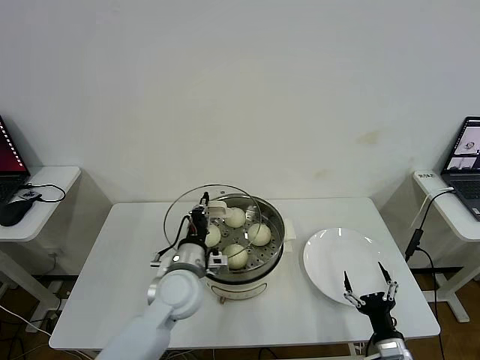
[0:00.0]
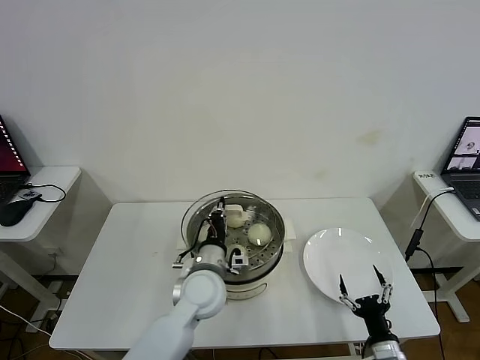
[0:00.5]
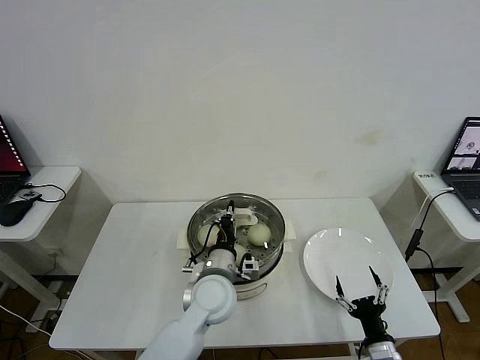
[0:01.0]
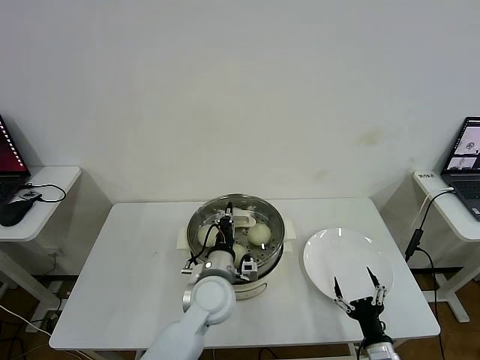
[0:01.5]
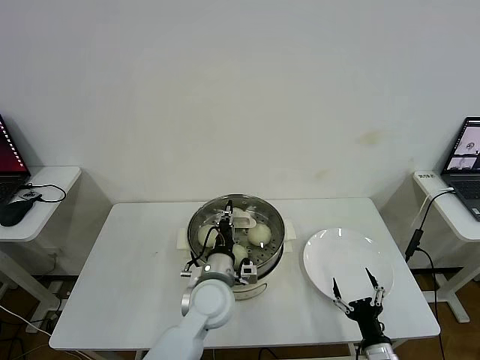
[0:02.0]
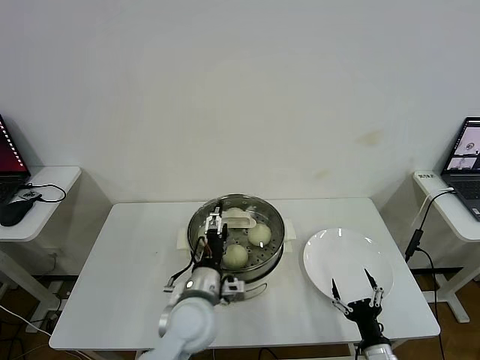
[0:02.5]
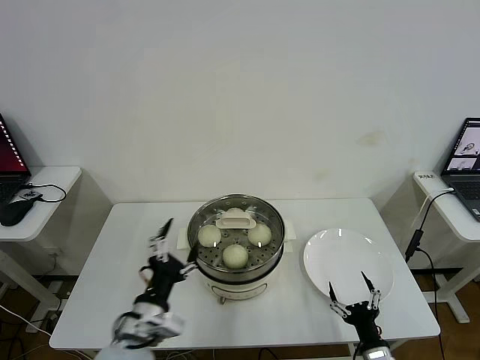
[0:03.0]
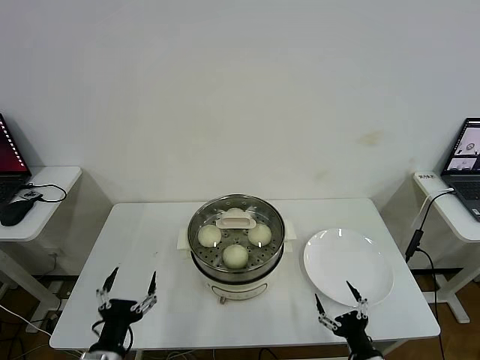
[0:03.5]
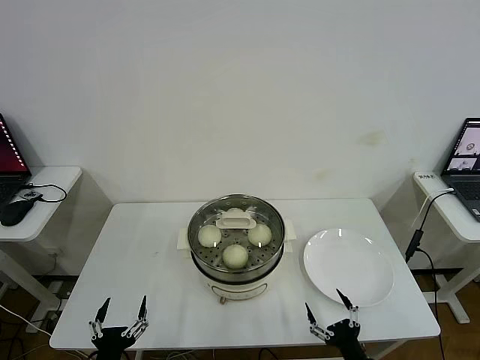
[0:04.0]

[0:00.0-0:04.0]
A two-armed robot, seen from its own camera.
Step, 0:00.0 to 0:02.0: Place the pot lid on the steamer with left gripper.
0:00.0 to 0:02.0: The left gripper is displaced to the right by approximately 5 cm.
0:02.0 to 0:04.0: The left gripper heads backward and to the left, covering about 30 cm, and opens its fingers, while the right gripper changes place by about 5 cm.

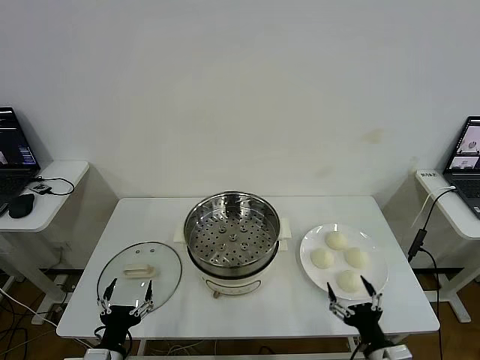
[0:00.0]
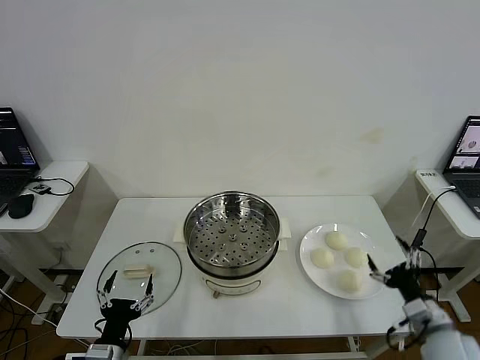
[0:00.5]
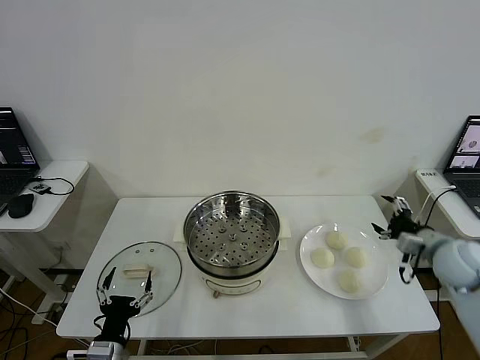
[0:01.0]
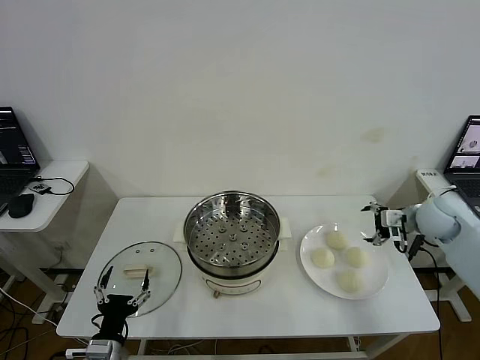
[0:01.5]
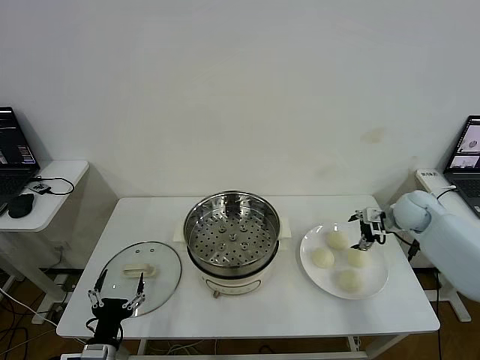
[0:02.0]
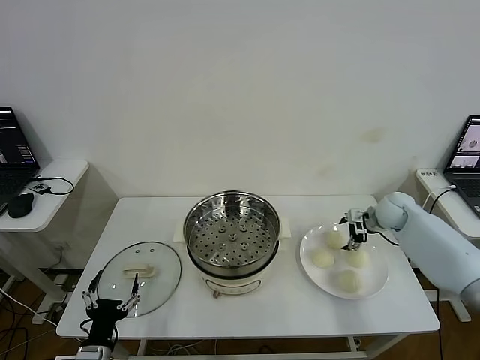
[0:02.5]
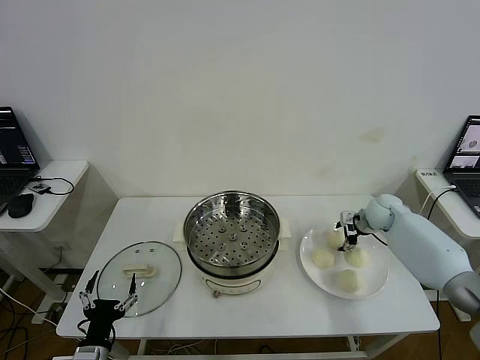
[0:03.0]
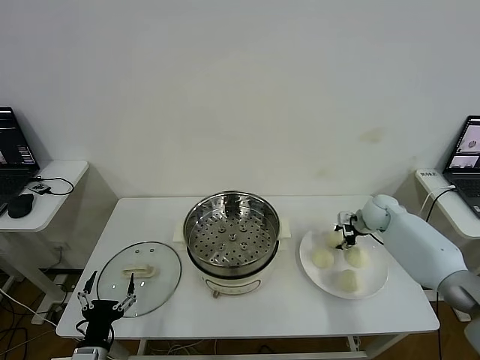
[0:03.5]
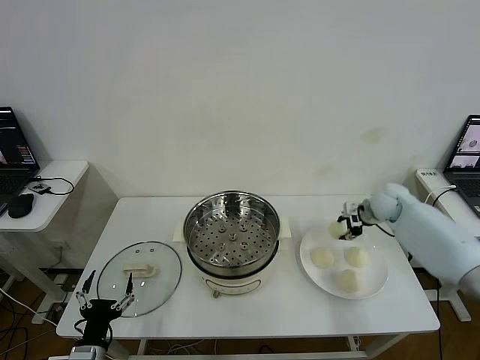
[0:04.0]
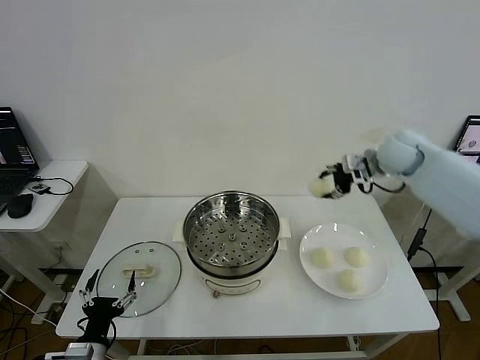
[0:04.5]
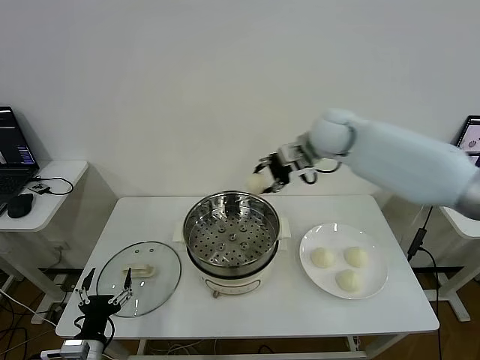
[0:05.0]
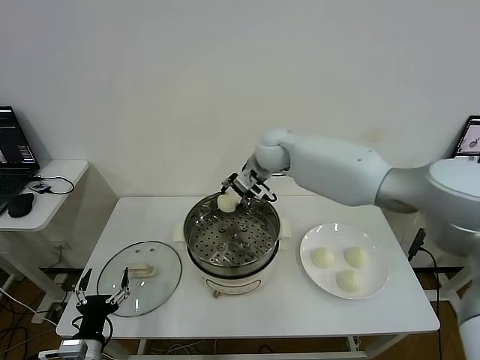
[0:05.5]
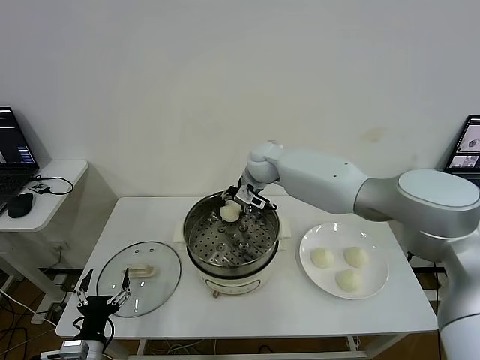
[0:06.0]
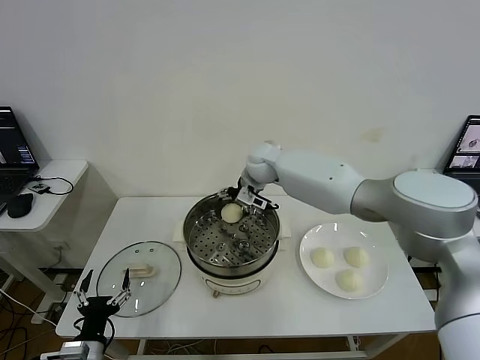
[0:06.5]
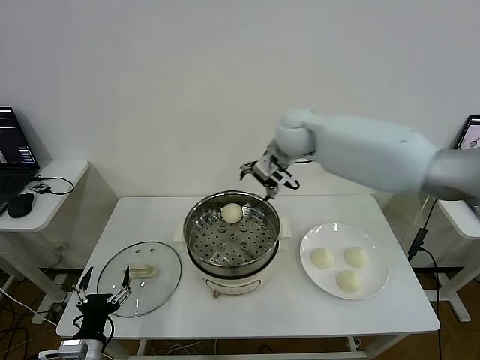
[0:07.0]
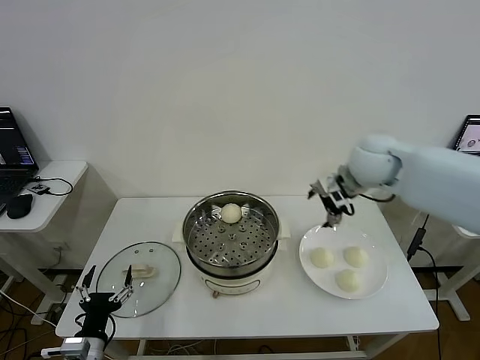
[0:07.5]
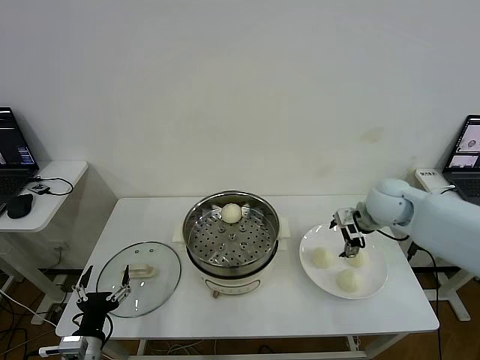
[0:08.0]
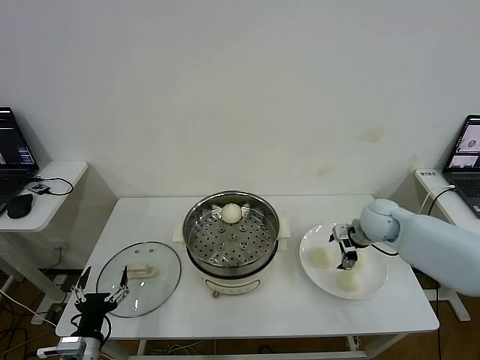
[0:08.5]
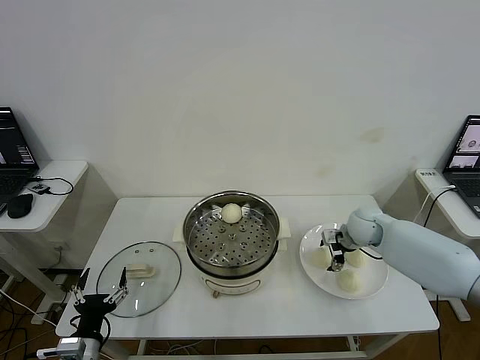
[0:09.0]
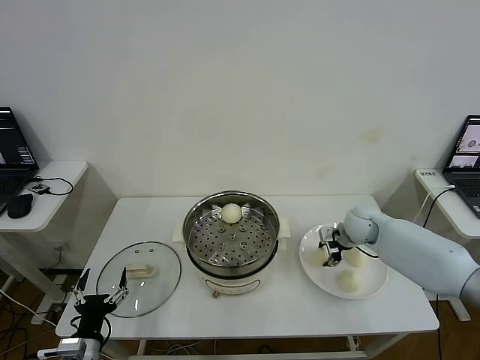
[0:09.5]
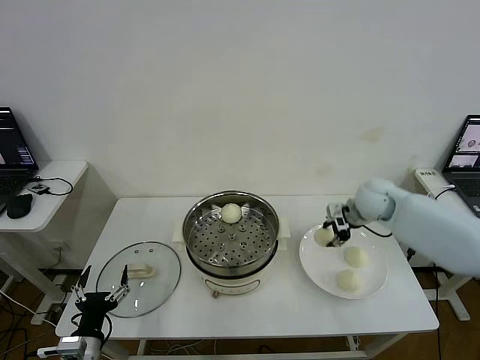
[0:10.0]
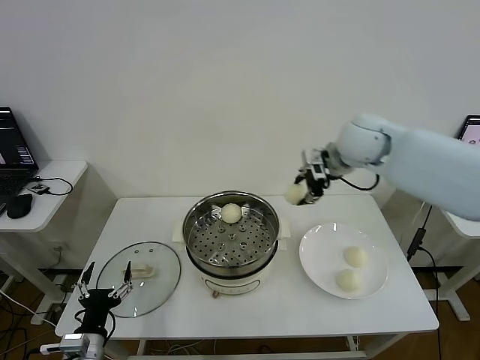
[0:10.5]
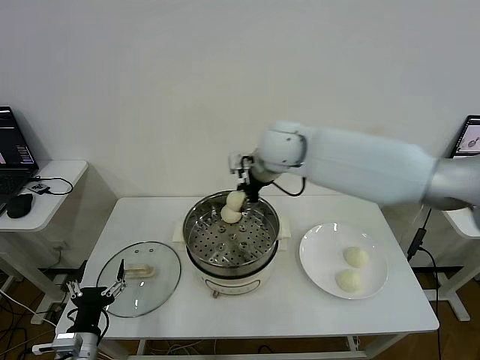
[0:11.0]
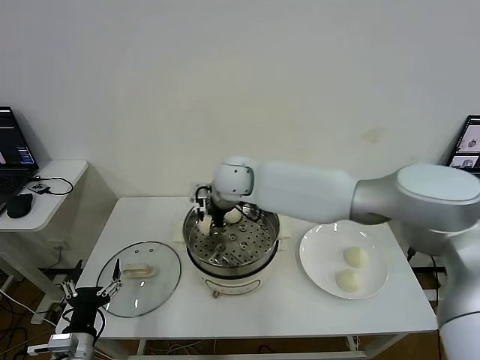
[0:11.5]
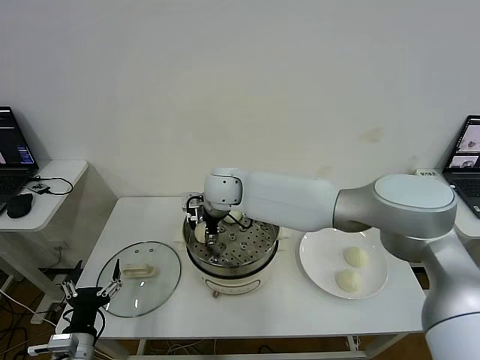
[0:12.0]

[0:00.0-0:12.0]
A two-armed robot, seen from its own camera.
Step, 0:00.0 to 0:03.5: Grasp the baozi in the plate with right gripper.
Step, 0:04.0 to 0:06.0: Place the baozi on the steamer with right gripper.
Step, 0:06.5 to 0:09.5: Grasp the baozi in the plate with right gripper.
Step, 0:10.0 to 0:12.0: Place the baozi on the steamer with right gripper.
0:02.0 to 0:04.0: The right gripper ends up roughly 5 cm from where it was, and closes its fingers.
0:04.0 to 0:06.0: The right gripper travels to the left by approximately 35 cm.
0:06.0 to 0:08.0: The right gripper travels to the right and backward by approximately 30 cm, and opens up.
0:08.0 to 0:10.0: The right gripper travels downward and back again, roughly 10 cm each way, and closes.
0:10.0 to 0:12.0: The right gripper shifts some 35 cm to the left, and opens.

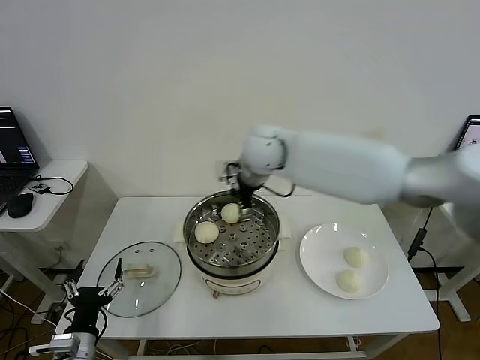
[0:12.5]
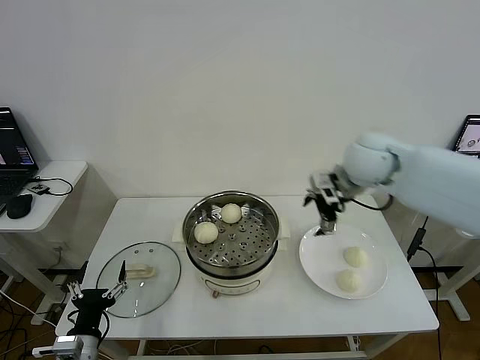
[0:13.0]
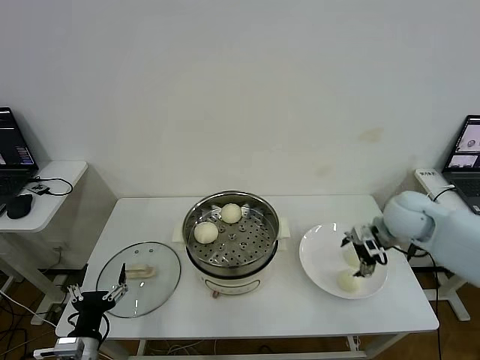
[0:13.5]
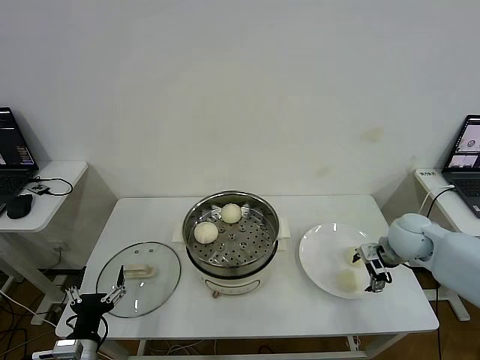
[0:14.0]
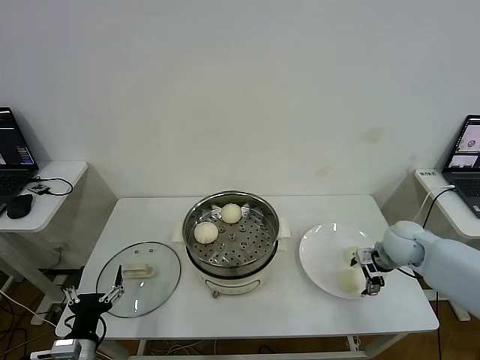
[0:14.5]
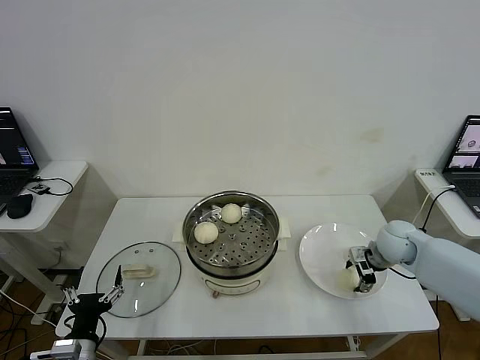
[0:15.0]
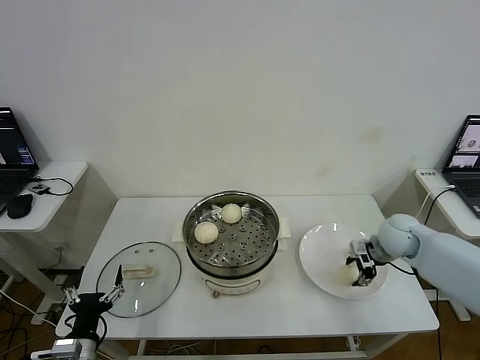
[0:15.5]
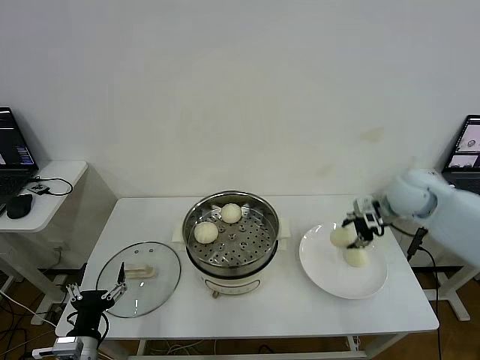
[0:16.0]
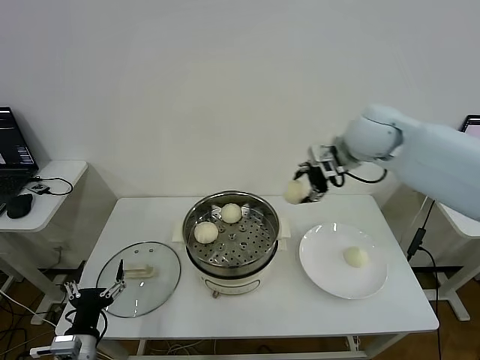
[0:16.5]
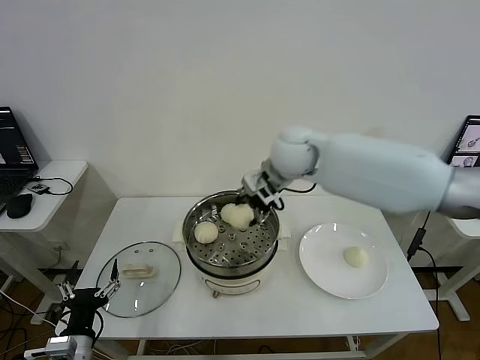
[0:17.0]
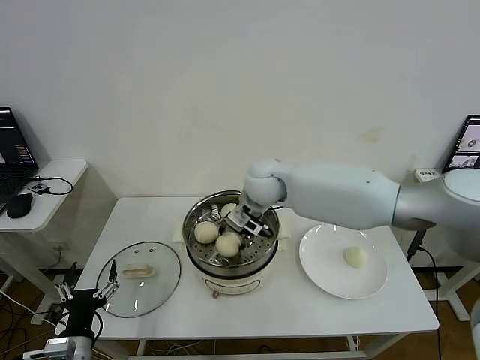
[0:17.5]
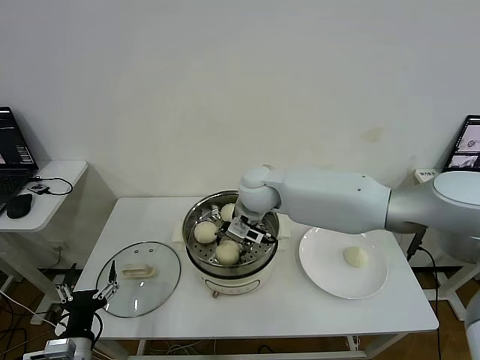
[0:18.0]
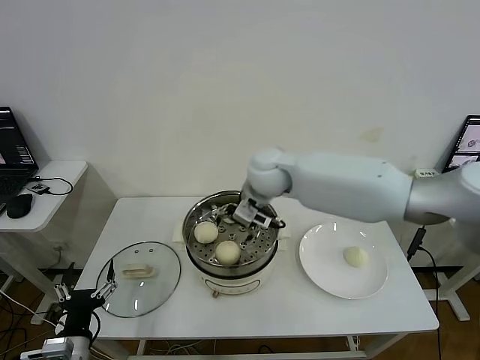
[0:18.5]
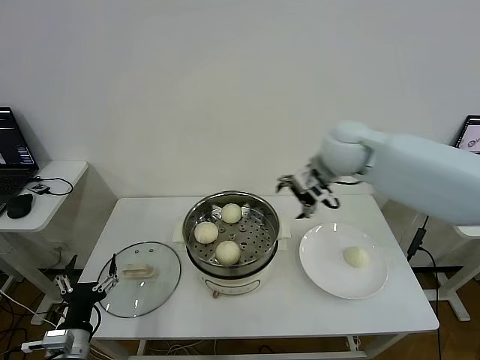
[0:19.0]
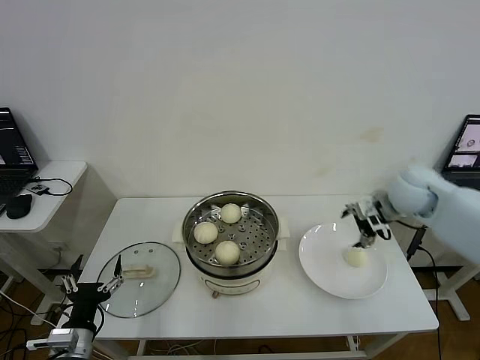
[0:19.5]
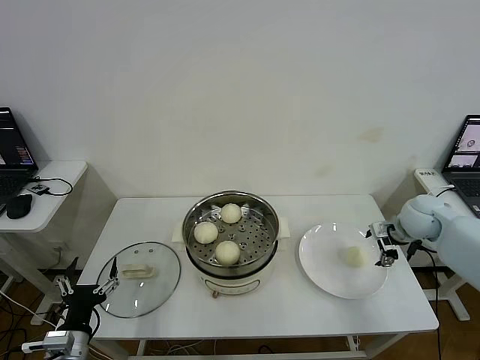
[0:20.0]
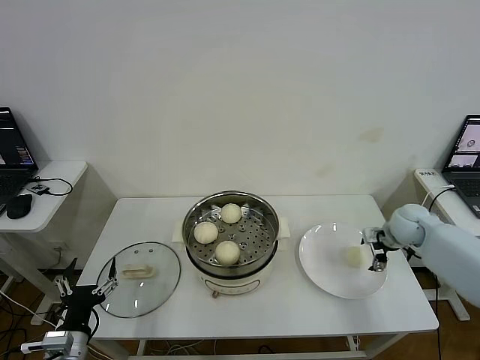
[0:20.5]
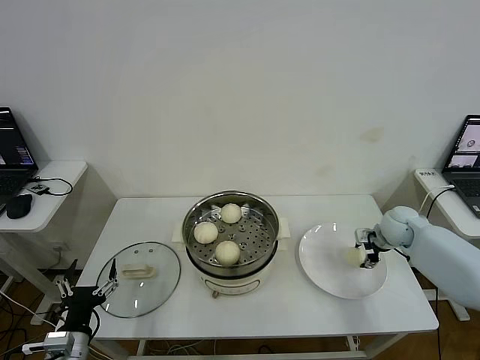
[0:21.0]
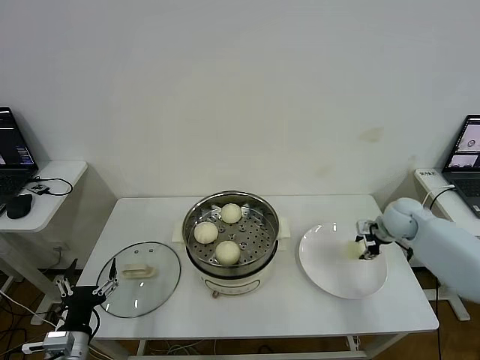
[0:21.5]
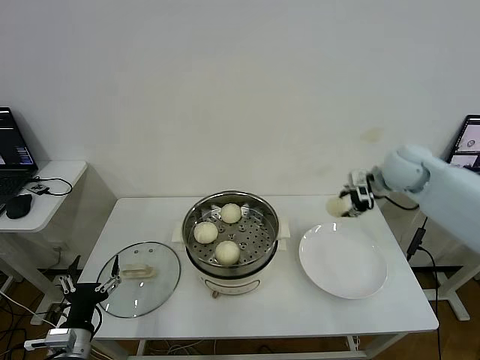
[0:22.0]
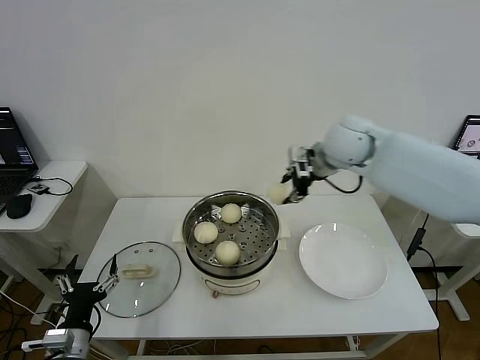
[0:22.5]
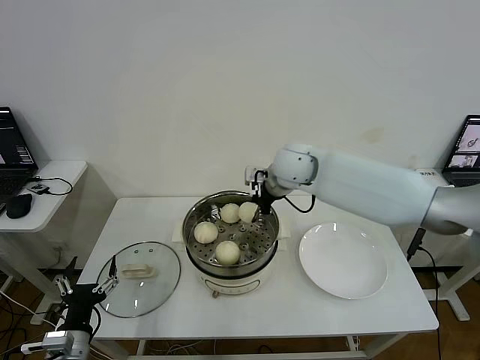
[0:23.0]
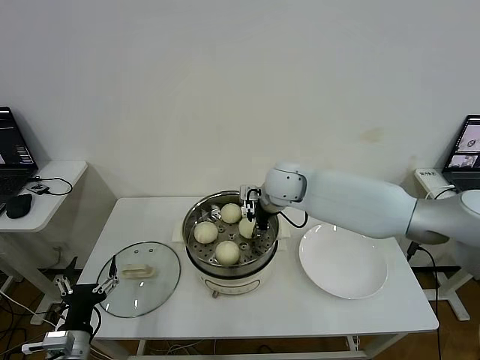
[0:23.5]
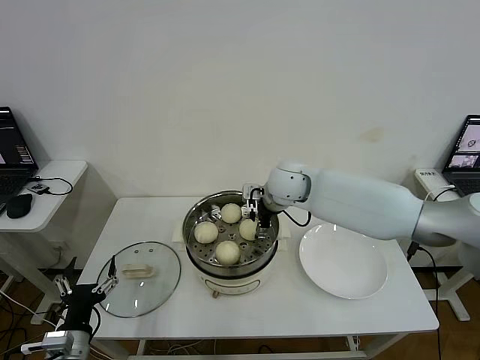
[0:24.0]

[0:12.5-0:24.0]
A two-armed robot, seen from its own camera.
Step, 0:12.5 to 0:15.0: Grasp the baozi in the plate with right gripper.
Step, 0:15.5 to 0:18.0: Place the baozi on the steamer with right gripper.
Step, 0:18.5 to 0:21.0: Grasp the baozi in the plate with right gripper.
Step, 0:21.5 to 0:23.5: Place the baozi on the steamer with right gripper.
0:12.5 to 0:14.5: The right gripper travels to the right and downward by roughly 40 cm.
0:14.5 to 0:16.5: The right gripper shifts some 30 cm upward and to the left, and closes up.
0:16.5 to 0:18.5: The right gripper travels to the left and downward by approximately 20 cm, and opens up.
0:18.5 to 0:20.0: The right gripper is displaced to the right by approximately 35 cm.
0:20.0 to 0:22.0: The right gripper is displaced upward and to the left by some 15 cm, and closes its fingers.
0:22.0 to 0:24.0: The right gripper goes approximately 25 cm to the left, and opens its fingers.
